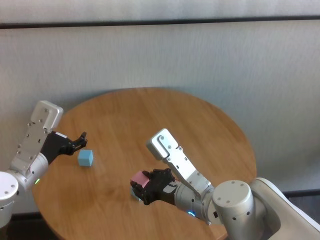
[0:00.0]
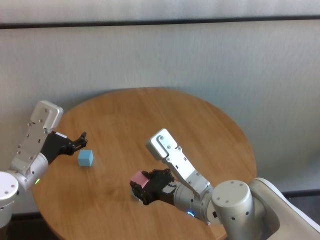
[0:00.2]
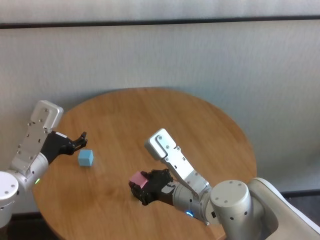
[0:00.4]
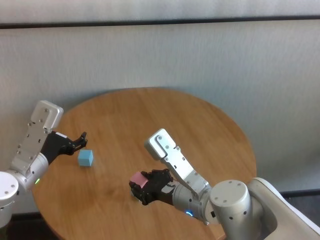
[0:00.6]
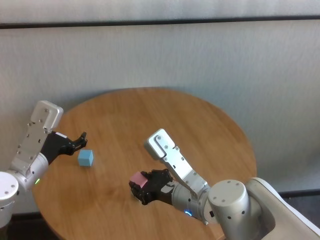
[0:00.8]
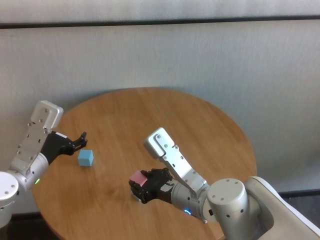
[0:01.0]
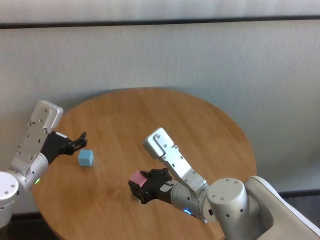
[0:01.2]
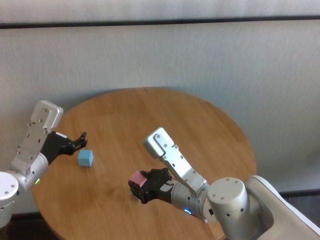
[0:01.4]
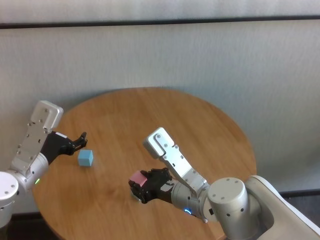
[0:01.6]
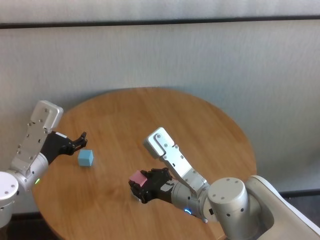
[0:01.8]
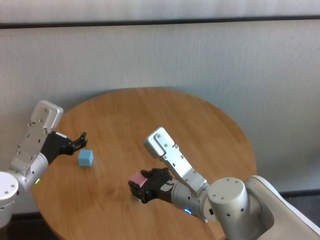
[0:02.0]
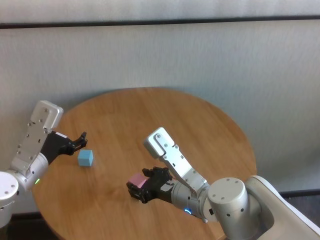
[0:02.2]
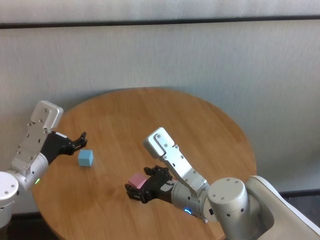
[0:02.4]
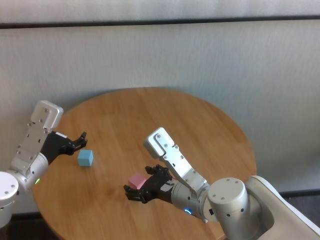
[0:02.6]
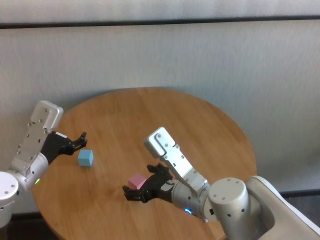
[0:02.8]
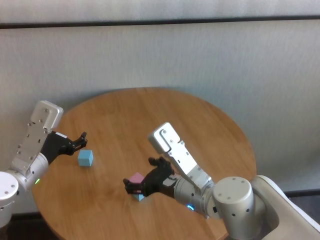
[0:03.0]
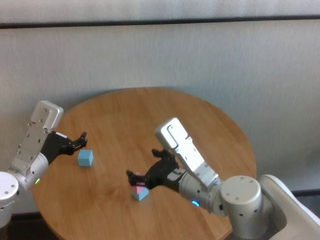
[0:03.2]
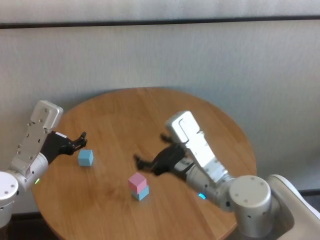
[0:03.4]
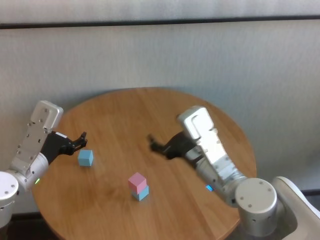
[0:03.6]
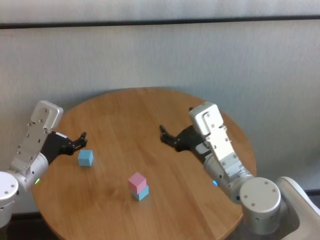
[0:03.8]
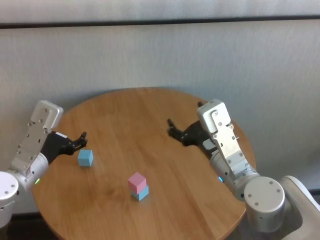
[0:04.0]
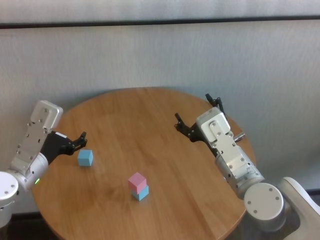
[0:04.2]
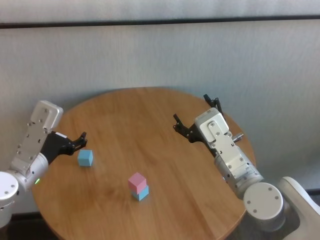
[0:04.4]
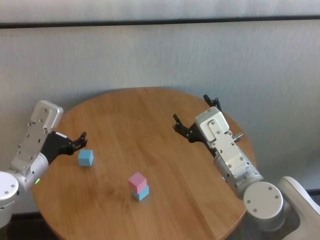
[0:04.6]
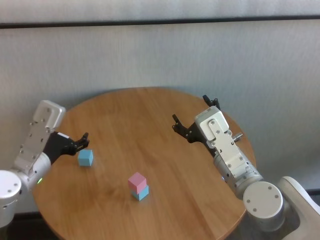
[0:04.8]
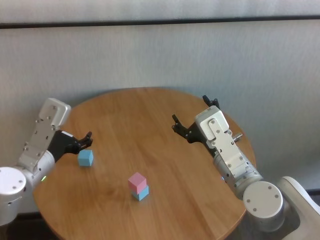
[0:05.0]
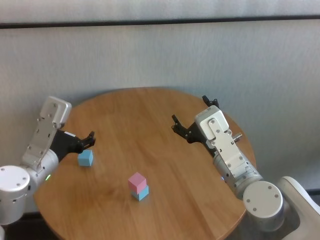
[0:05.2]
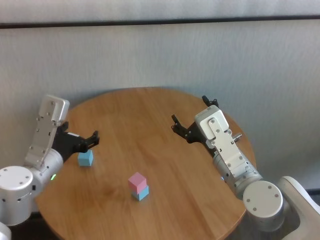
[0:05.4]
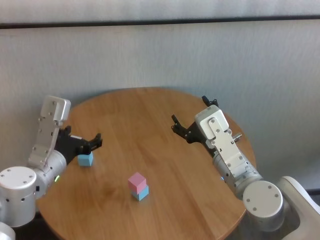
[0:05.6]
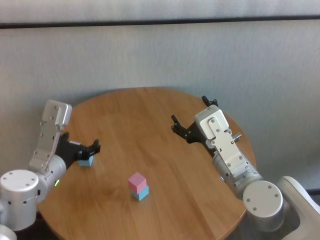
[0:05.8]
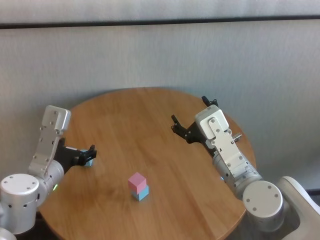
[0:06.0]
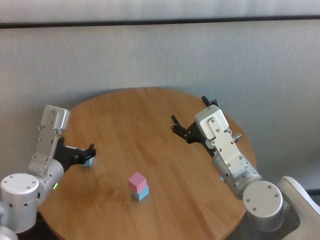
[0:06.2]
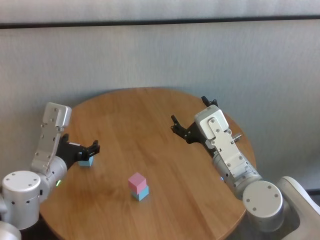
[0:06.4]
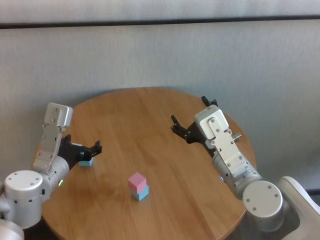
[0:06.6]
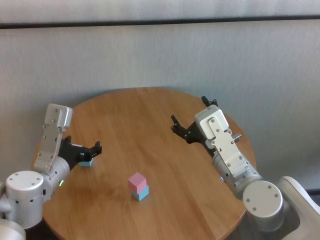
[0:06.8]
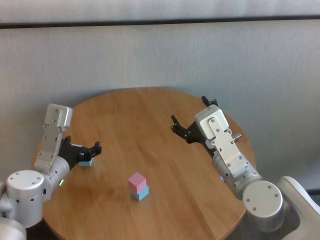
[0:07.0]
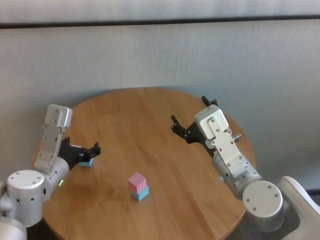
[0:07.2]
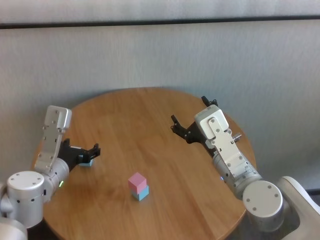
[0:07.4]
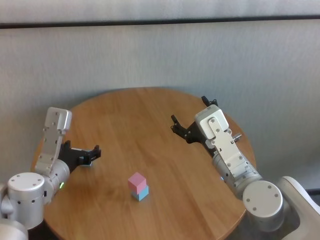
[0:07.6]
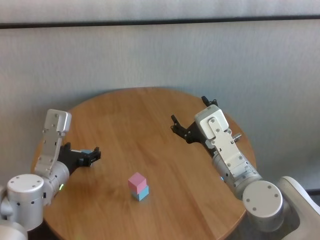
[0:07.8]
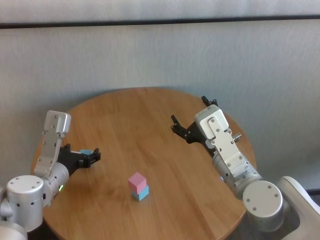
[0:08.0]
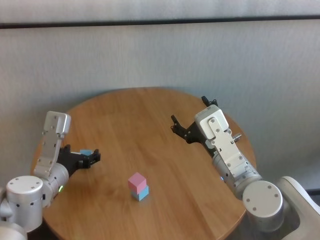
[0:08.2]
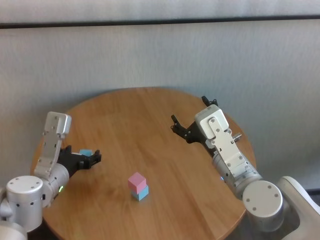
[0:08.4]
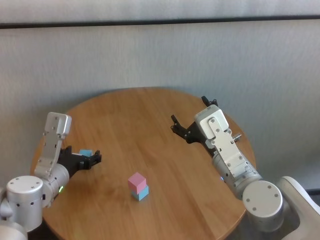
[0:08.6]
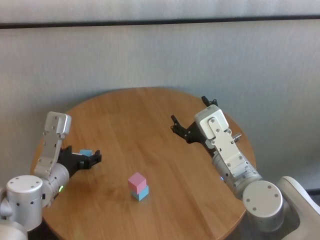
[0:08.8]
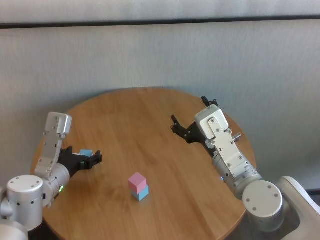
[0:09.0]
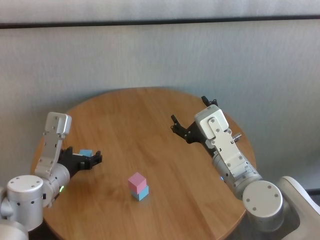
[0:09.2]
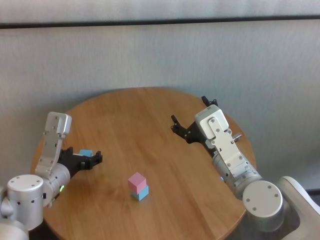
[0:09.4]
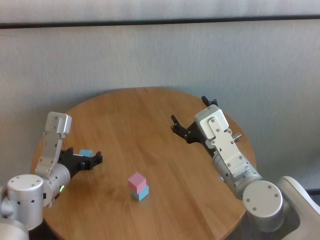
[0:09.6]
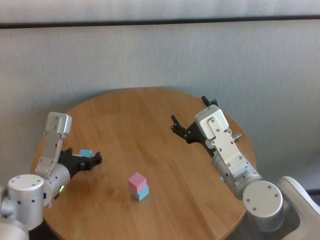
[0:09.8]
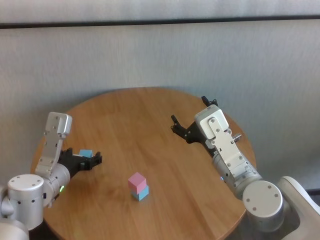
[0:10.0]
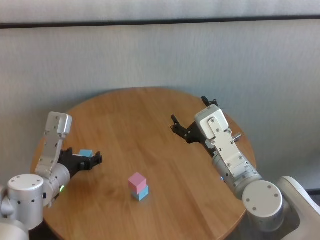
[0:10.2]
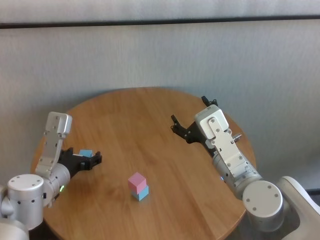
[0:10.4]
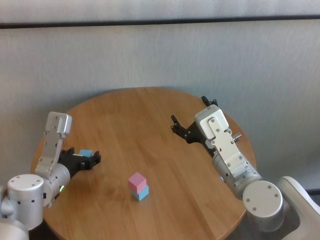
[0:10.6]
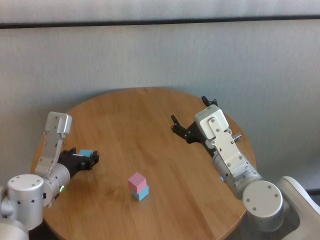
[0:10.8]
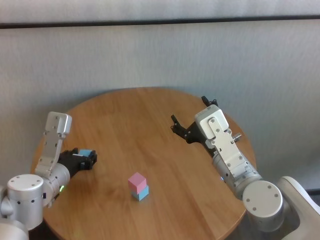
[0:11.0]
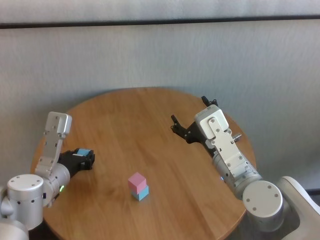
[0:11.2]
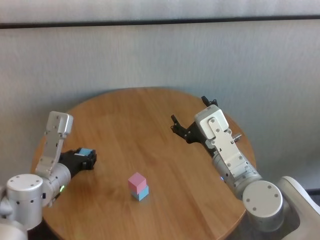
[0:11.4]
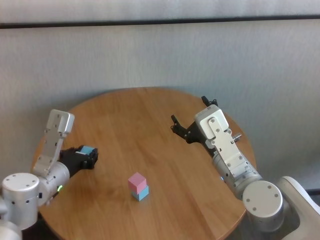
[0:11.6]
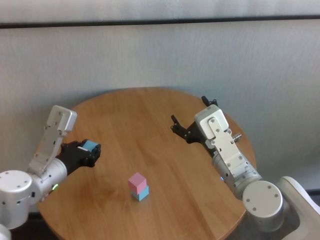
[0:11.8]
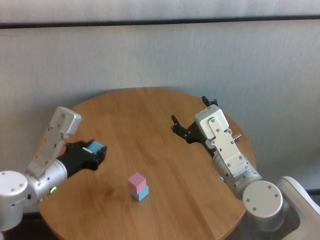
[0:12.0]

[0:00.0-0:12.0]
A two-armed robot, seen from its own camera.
Task of the whole recording: stack building blocks on the table.
Step, 0:00.0 to 0:02.2: Place the pink building block on the blue building blocks with right gripper.
Step, 0:02.4 to 0:11.0: Grasp the blue building block with left gripper.

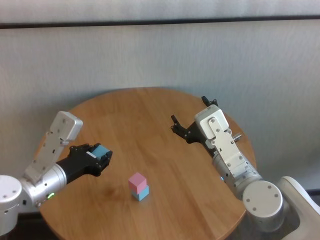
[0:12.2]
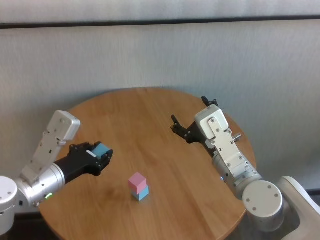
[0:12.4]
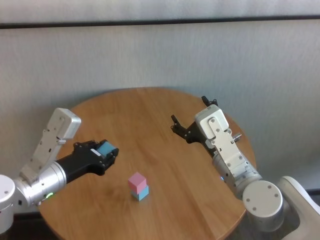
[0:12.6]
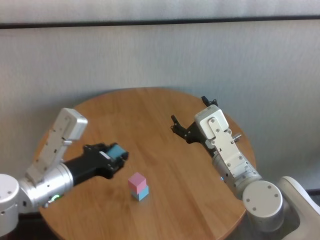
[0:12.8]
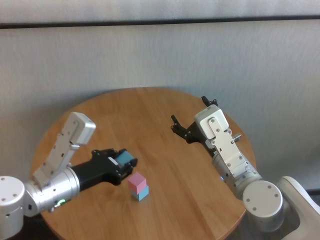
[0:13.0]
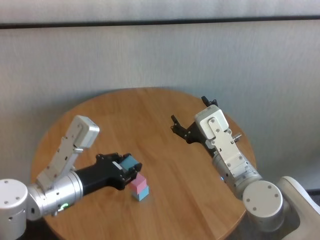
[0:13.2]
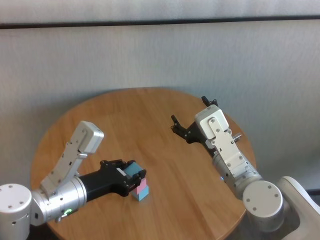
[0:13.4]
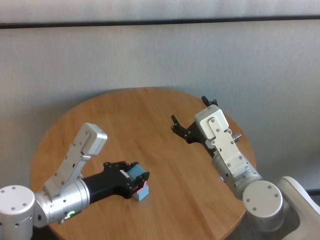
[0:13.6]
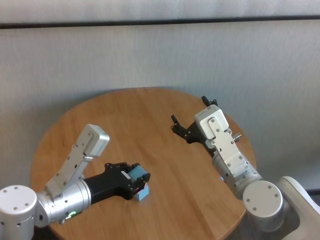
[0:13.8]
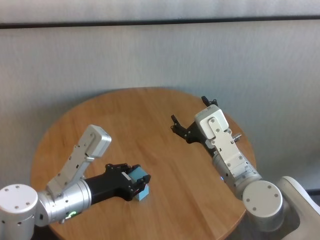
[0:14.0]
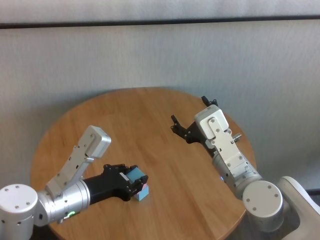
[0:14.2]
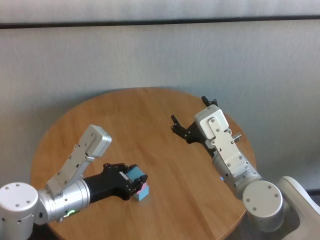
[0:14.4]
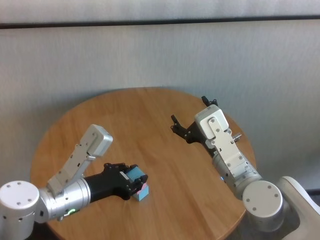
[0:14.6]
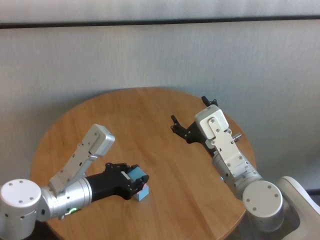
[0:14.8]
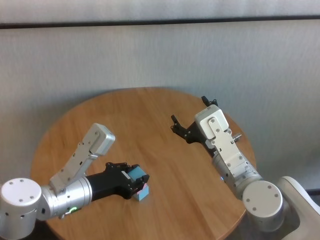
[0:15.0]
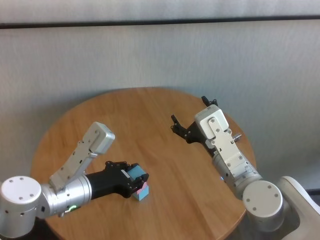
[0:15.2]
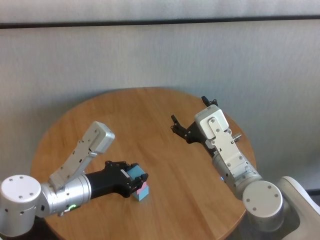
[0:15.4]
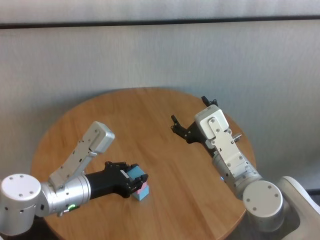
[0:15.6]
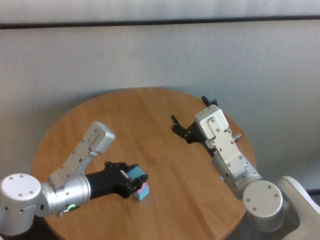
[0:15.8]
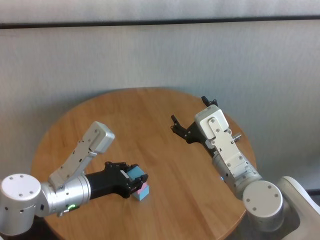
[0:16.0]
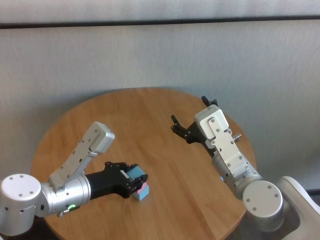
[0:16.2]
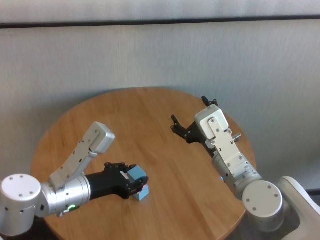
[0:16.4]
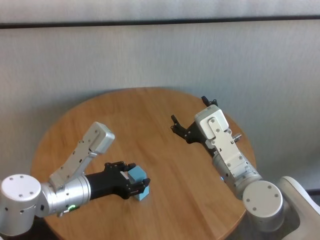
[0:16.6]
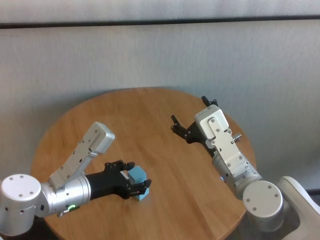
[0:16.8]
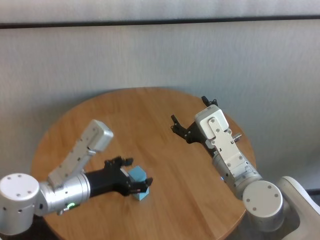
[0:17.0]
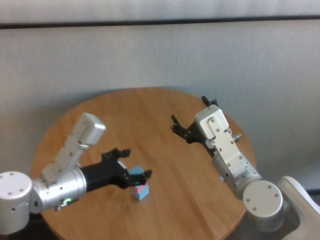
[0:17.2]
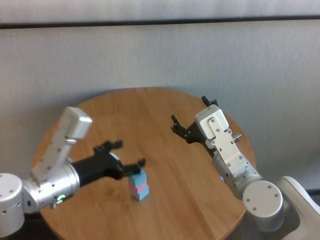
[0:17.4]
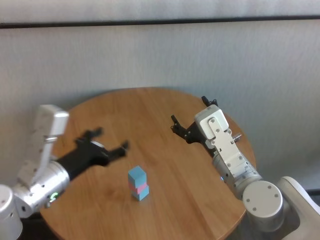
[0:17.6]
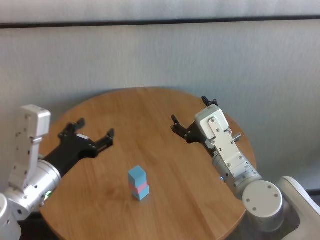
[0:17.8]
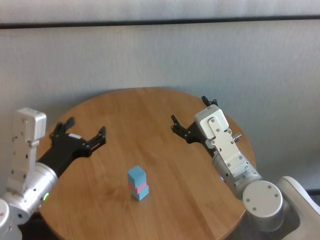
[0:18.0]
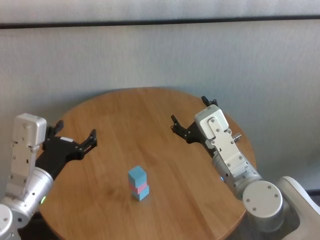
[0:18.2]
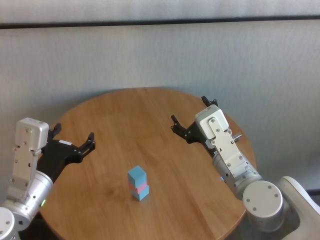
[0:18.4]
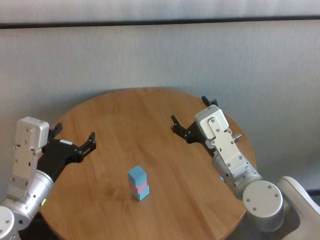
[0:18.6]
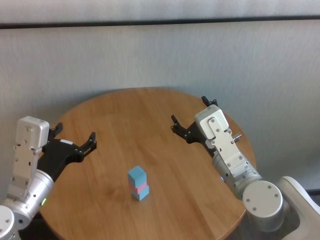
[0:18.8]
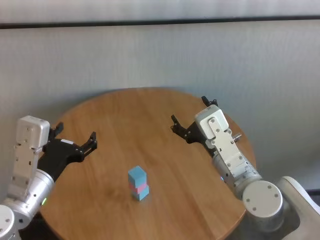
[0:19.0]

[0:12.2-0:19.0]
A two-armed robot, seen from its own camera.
Task of the whole recording: stack building blocks on the table.
Step, 0:12.2 to 0:16.6: Place the blue building block on the pink building blocks with left gripper.
